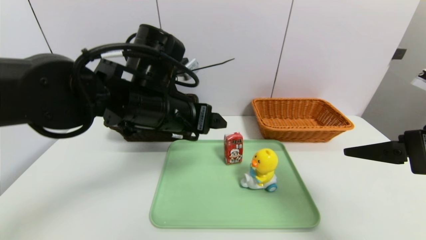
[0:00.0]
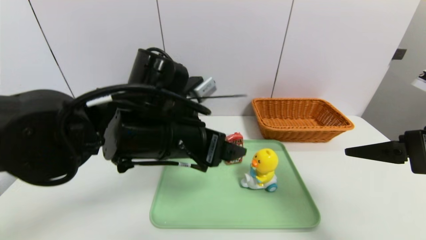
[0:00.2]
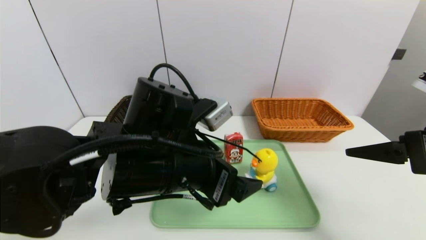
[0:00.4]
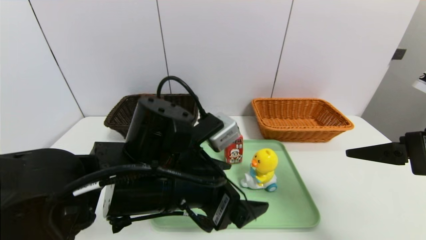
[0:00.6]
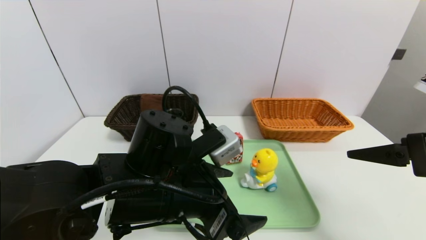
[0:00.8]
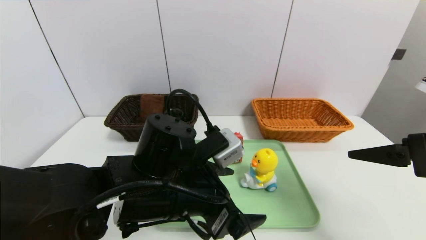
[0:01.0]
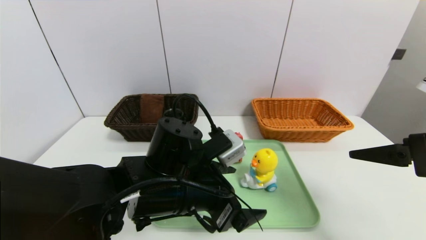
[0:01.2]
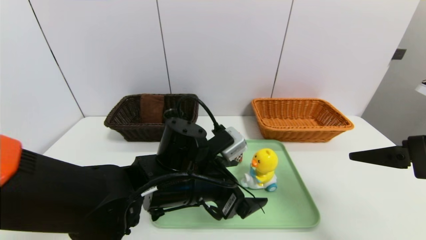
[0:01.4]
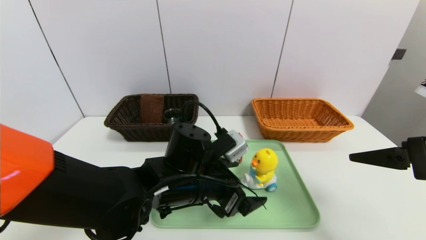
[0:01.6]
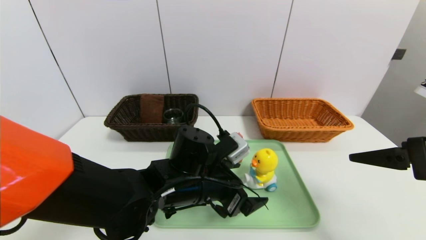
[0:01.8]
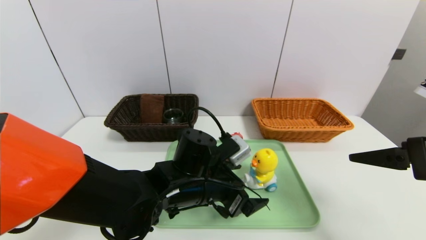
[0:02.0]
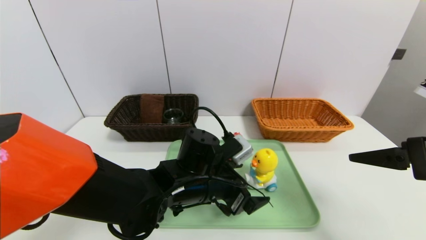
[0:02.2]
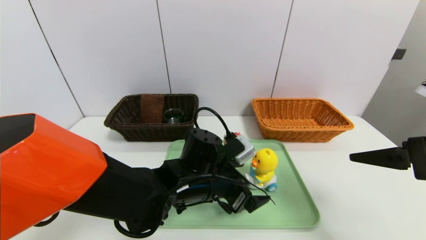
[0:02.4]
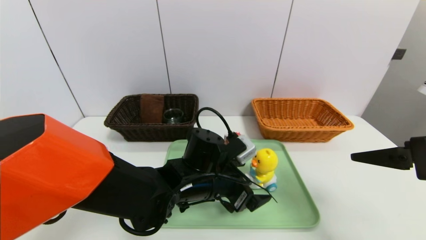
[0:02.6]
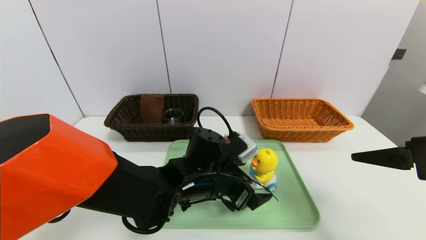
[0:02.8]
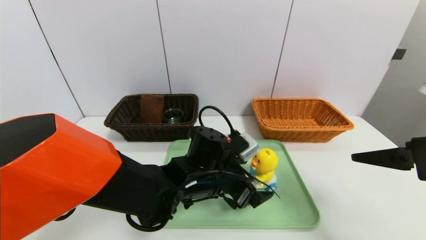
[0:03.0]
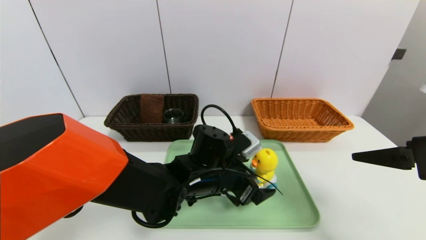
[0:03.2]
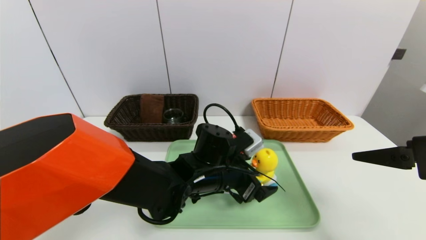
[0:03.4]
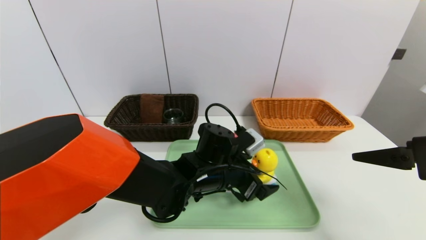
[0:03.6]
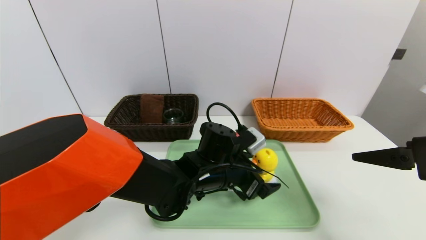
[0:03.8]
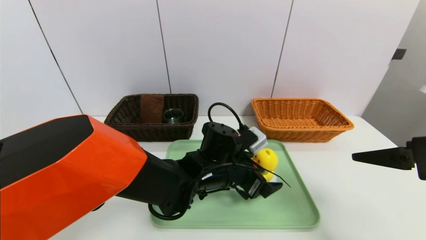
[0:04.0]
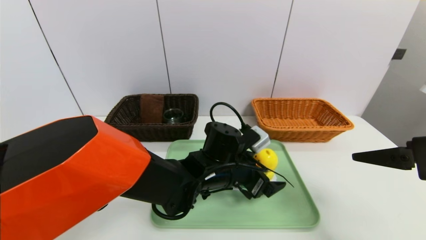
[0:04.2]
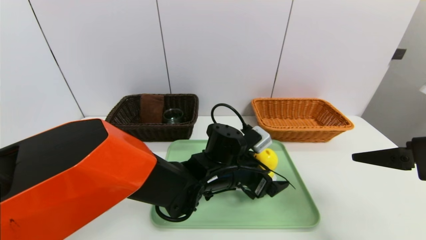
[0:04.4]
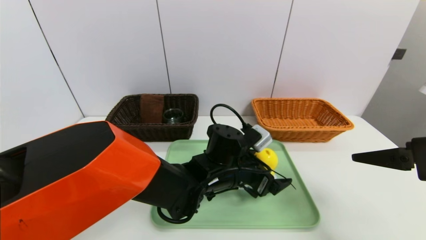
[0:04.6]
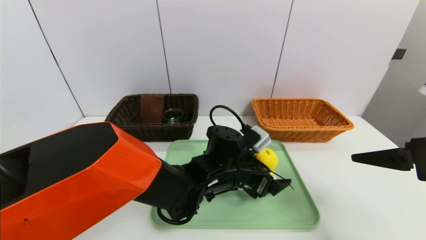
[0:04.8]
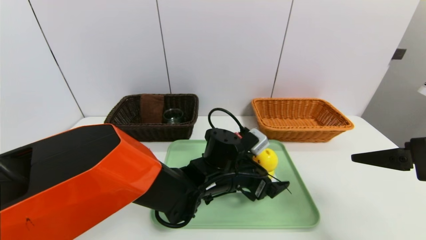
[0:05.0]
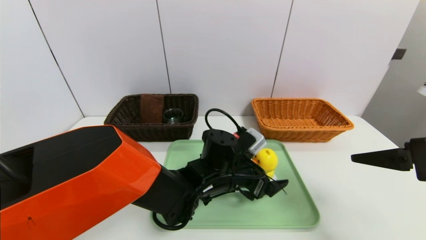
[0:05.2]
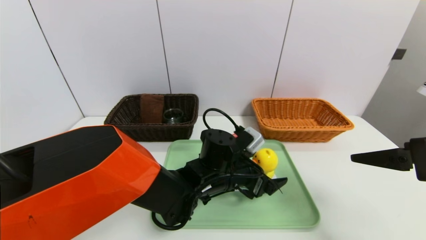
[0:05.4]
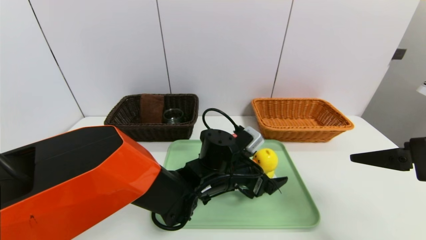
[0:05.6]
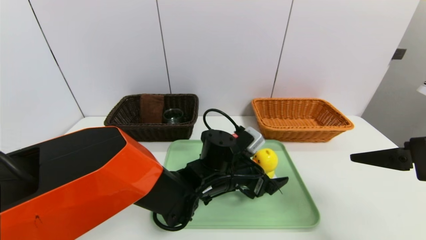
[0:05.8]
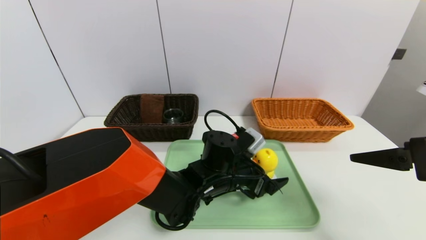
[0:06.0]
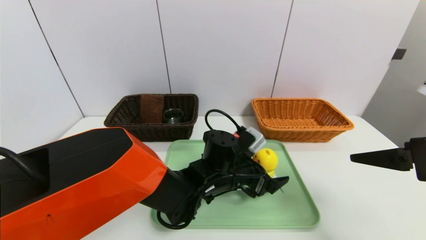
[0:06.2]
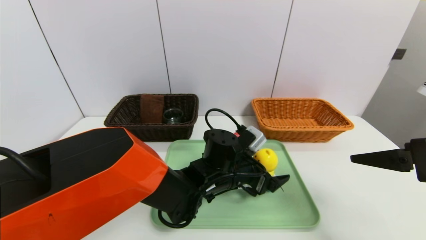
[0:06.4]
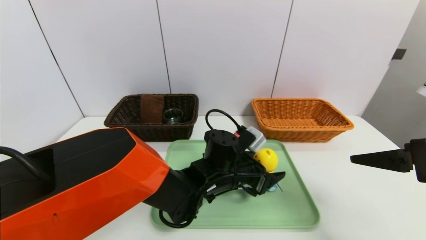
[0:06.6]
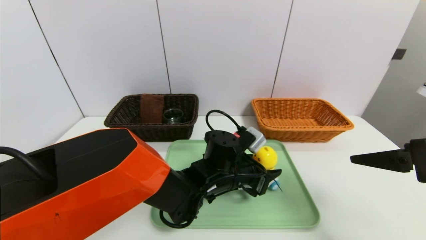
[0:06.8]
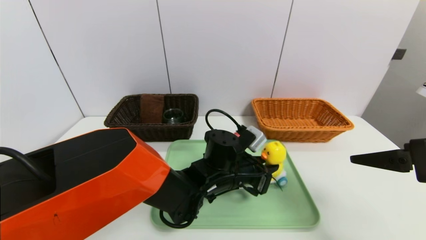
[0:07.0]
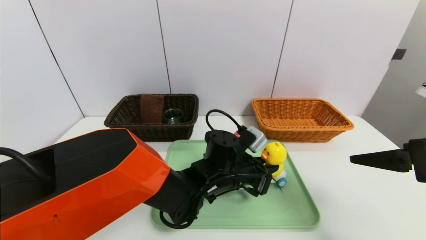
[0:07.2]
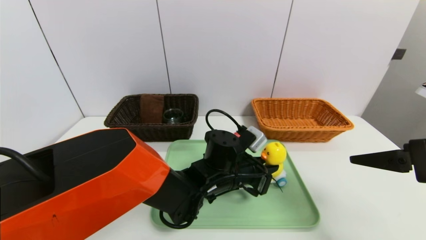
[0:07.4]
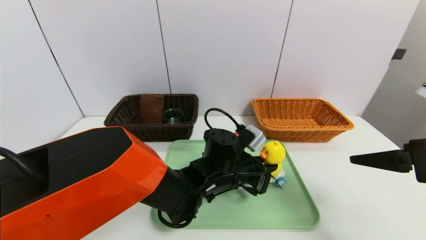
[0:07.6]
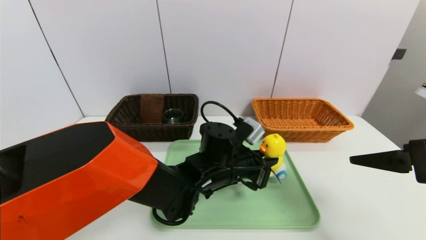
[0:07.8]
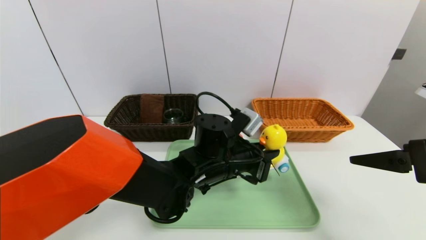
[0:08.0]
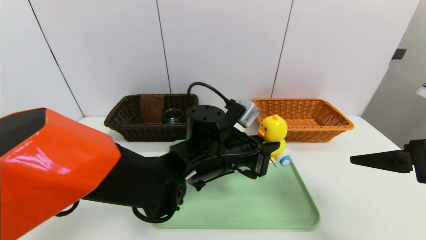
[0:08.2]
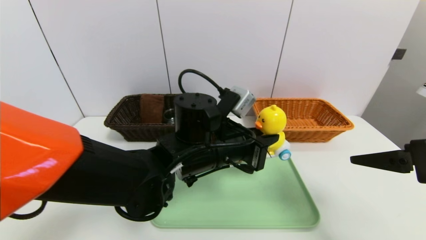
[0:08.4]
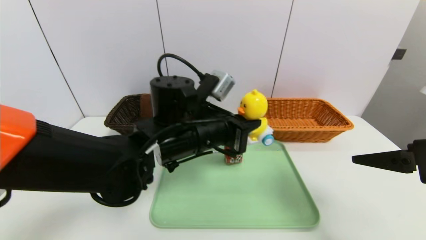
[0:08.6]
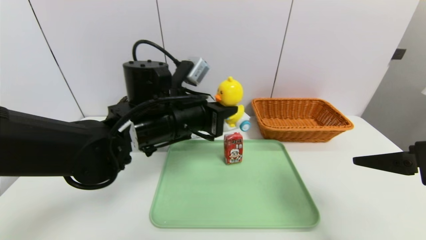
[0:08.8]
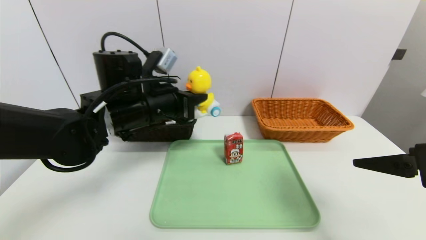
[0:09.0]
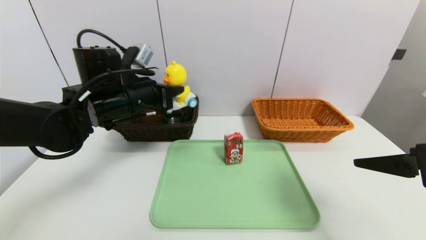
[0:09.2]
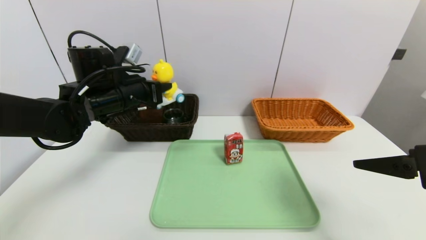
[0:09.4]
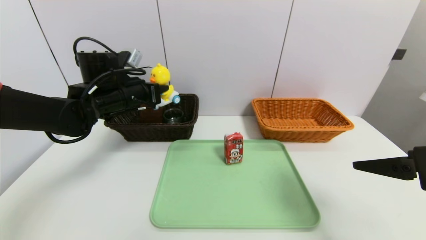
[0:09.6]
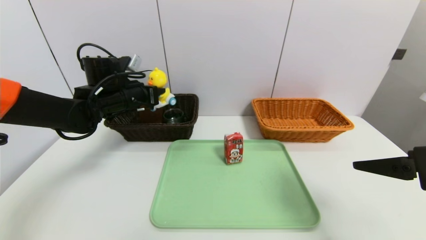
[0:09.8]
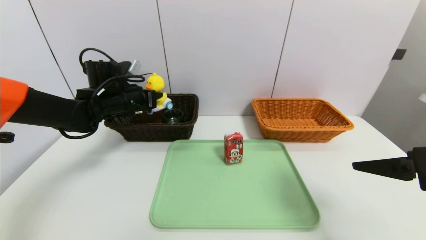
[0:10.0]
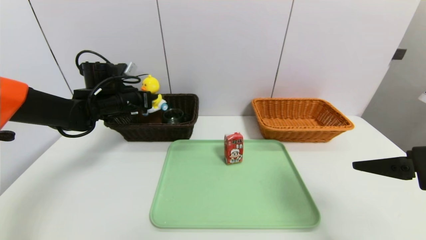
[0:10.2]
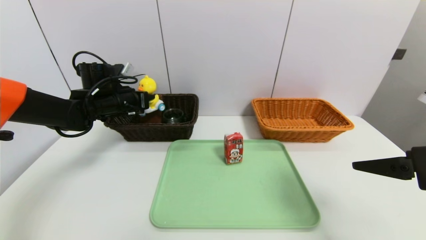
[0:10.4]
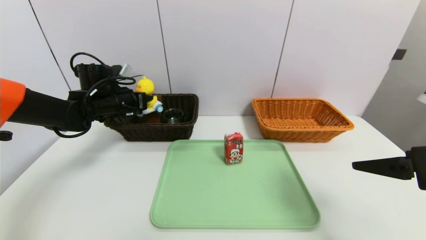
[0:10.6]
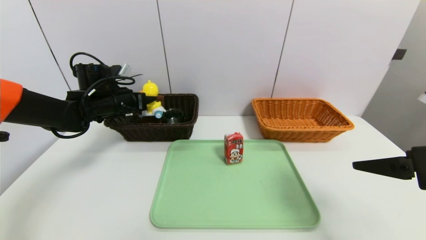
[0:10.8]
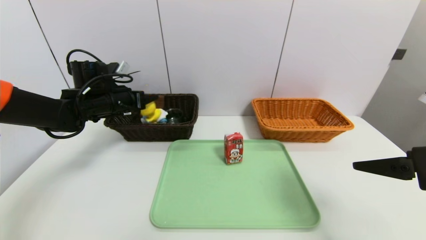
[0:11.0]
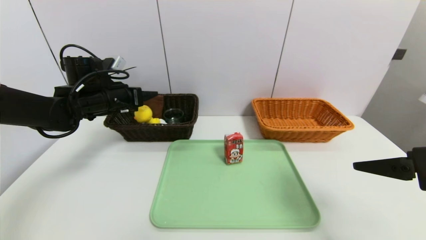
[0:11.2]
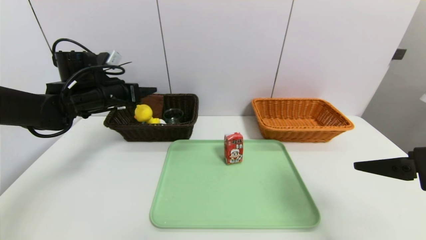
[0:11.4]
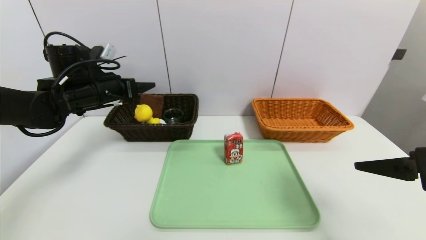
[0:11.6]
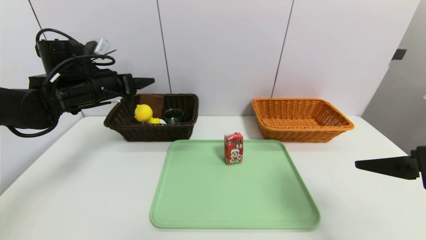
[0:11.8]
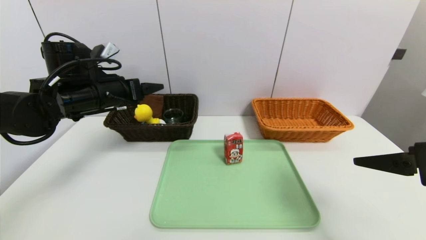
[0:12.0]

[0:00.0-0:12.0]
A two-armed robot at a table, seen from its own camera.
Task of the whole recording: place the food in the right basket with the right gripper, and place the non food items in the left basket with the left gripper.
Step, 0:00.0 to 0:11.2: Grasp the duck toys and put it in the left basket.
0:00.0 to 0:01.6: The left gripper travels downward by roughly 10 cm.
0:01.6 to 0:03.0: The grippers stay close to where they were, moving slightly.
0:03.0 to 0:06.0: The grippers move only a little.
0:06.0 to 0:07.6: The left gripper closes up.
0:07.6 to 0:09.0: The left gripper travels to the left and upward by about 20 cm.
0:09.0 to 0:10.4: The left gripper goes approximately 15 cm to the left and forward.
0:10.4 to 0:12.0: The left gripper travels backward and upward by approximately 10 cm, and opens its fingers.

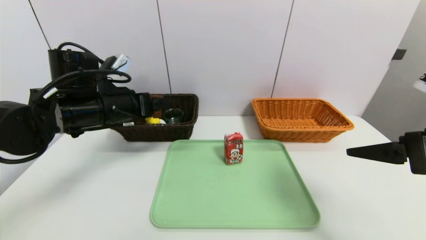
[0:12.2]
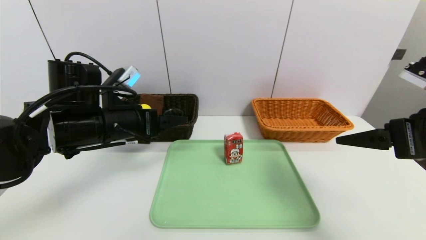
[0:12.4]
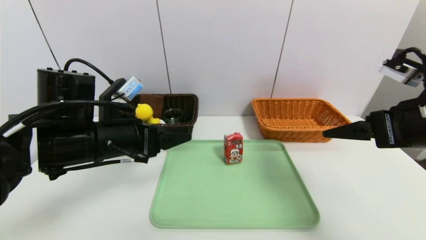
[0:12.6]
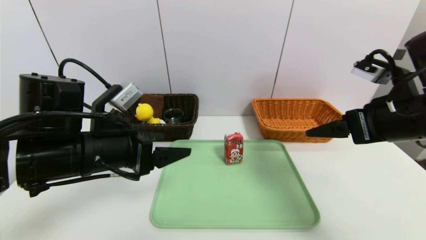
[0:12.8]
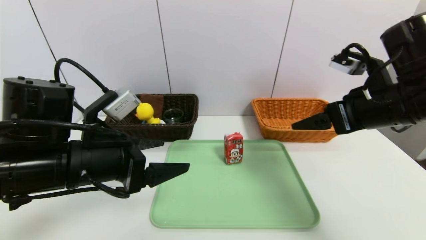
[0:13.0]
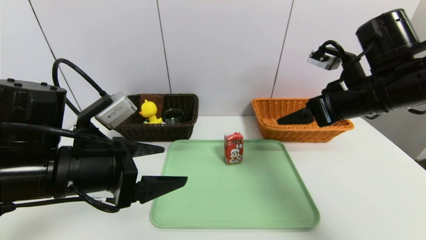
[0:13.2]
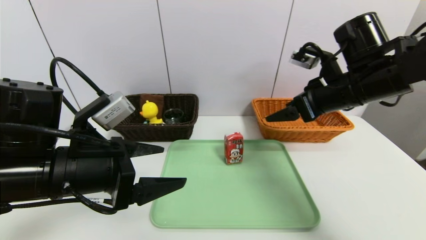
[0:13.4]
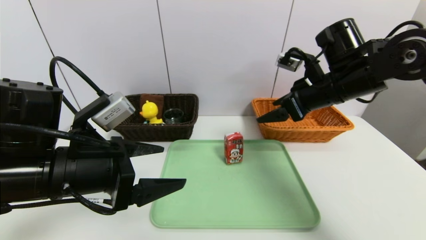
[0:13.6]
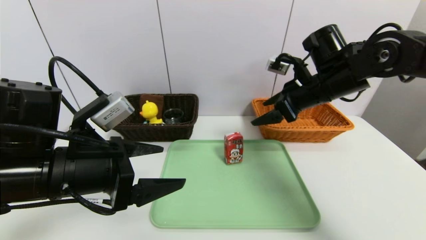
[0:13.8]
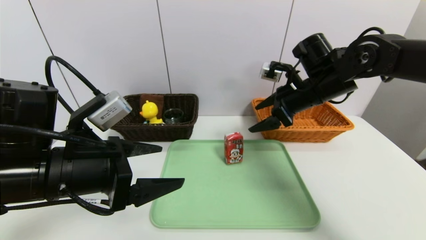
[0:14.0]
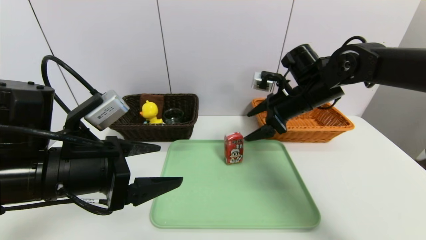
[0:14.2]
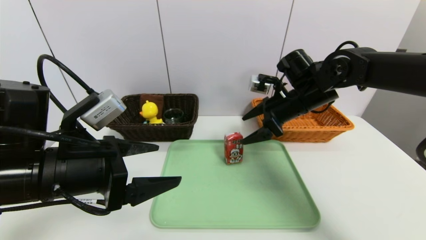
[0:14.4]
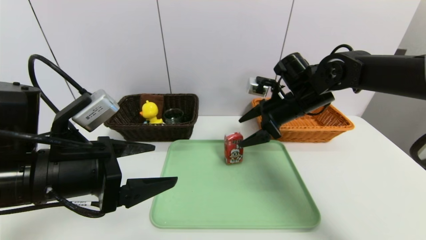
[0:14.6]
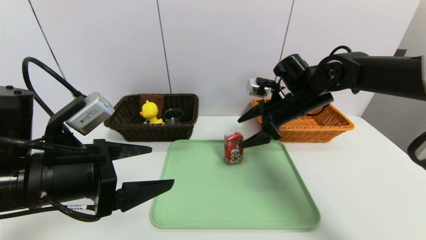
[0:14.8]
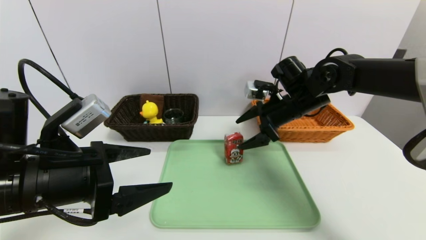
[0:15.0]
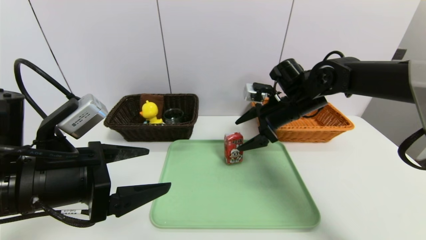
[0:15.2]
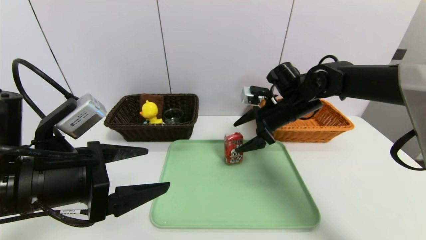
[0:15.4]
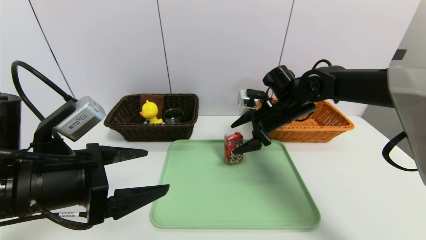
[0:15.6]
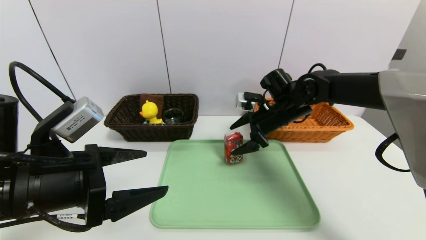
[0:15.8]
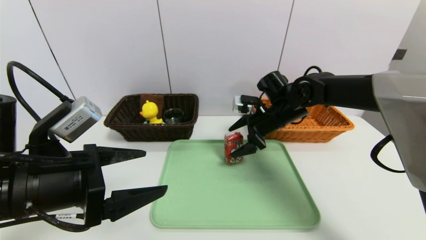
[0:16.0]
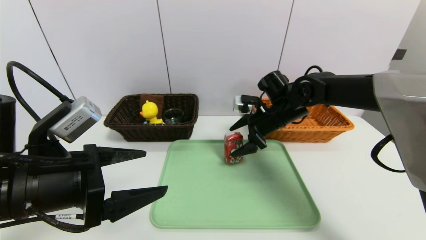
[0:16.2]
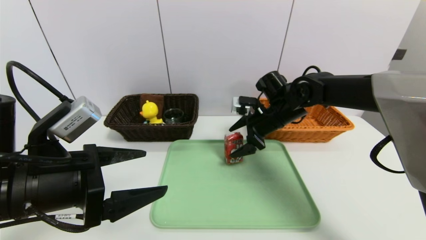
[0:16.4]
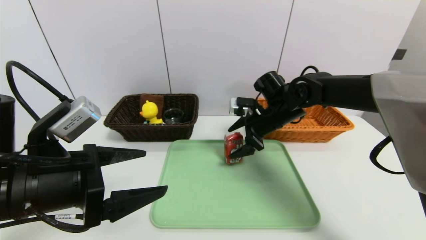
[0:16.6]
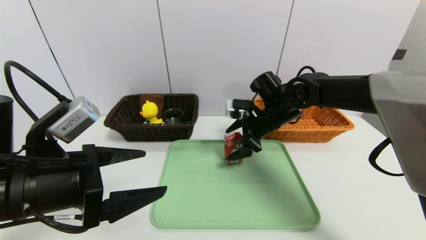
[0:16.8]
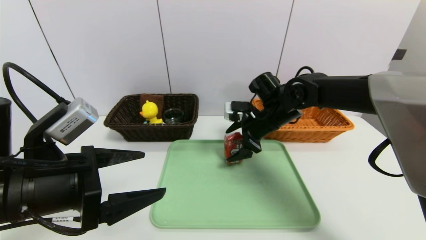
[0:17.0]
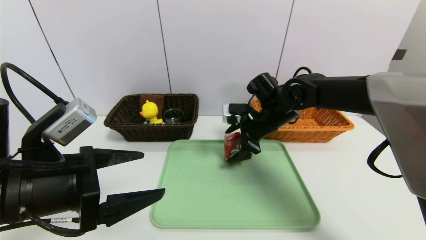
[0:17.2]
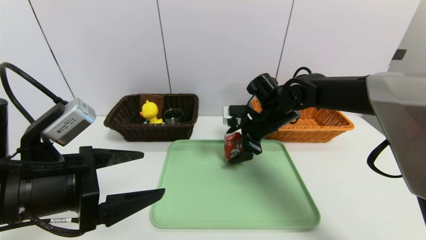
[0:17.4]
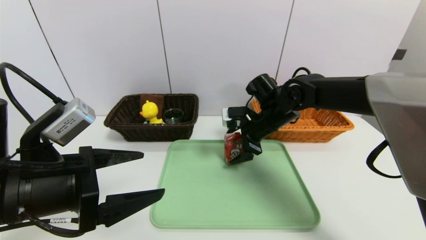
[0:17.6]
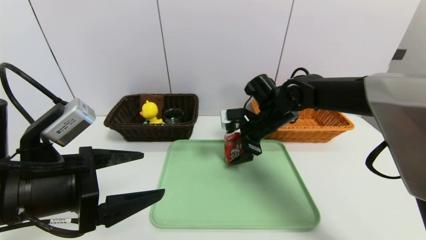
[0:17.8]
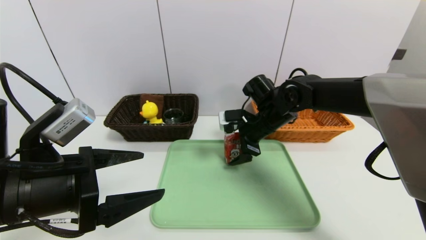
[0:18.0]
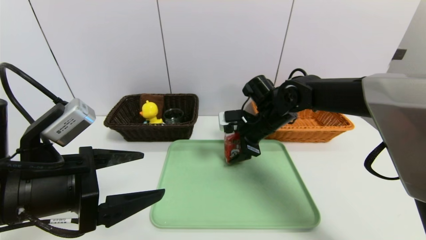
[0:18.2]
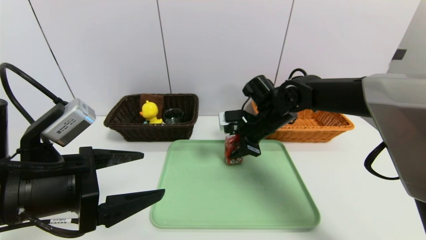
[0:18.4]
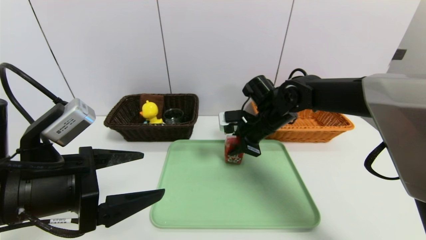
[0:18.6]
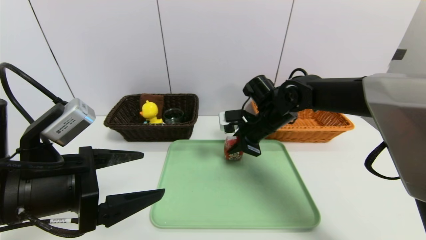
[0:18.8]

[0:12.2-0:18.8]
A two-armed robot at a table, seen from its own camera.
Task of the whole recording: place the food in the right basket with the right gripper, and place the non food items in the left basket with the left gripper.
0:12.2 to 0:13.8: The right gripper moves forward and to the left, some 20 cm; the left gripper heads backward, covering roughly 10 cm.
0:13.8 to 0:15.4: The right gripper goes approximately 5 cm downward.
0:17.2 to 0:18.8: The right gripper closes up.
